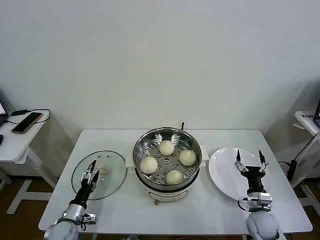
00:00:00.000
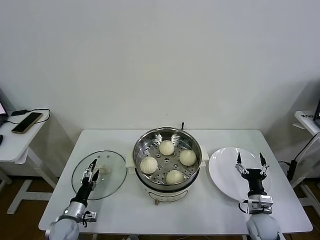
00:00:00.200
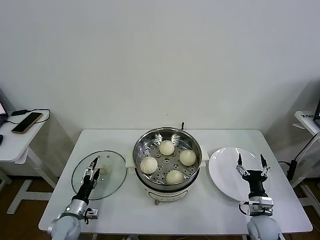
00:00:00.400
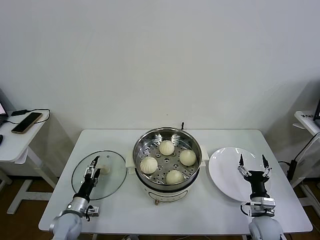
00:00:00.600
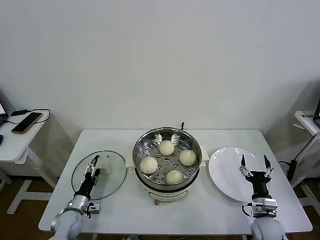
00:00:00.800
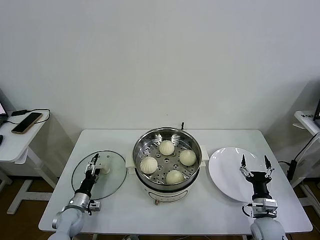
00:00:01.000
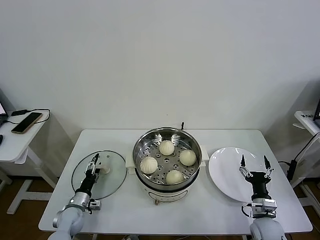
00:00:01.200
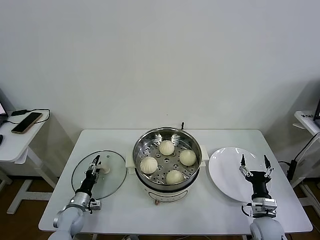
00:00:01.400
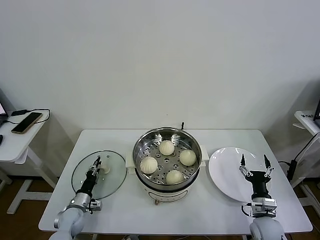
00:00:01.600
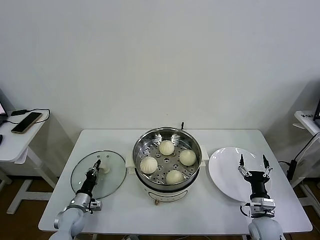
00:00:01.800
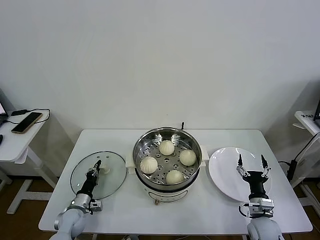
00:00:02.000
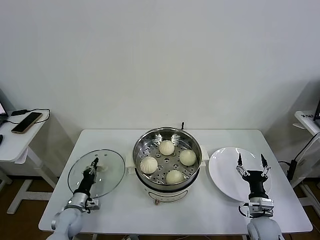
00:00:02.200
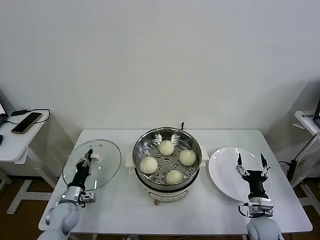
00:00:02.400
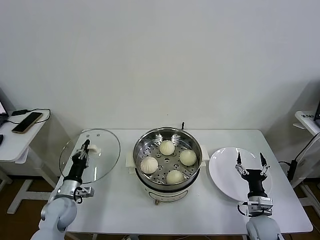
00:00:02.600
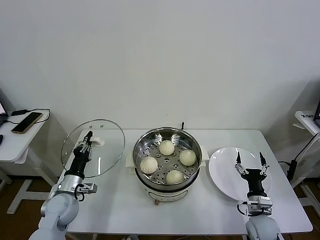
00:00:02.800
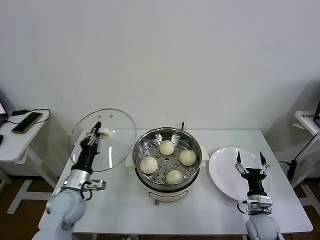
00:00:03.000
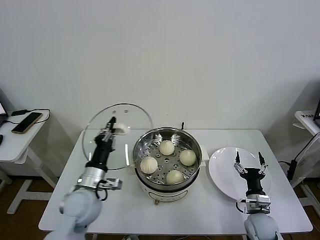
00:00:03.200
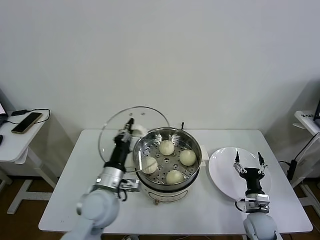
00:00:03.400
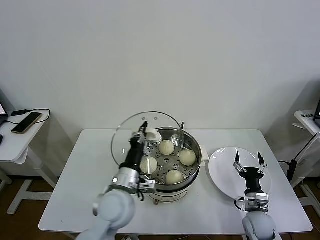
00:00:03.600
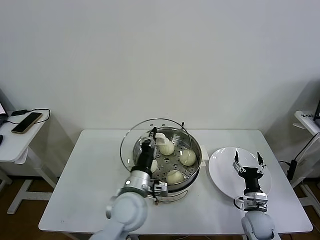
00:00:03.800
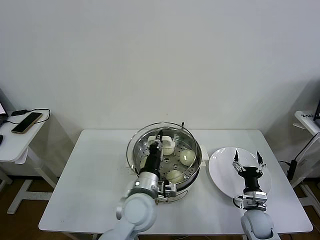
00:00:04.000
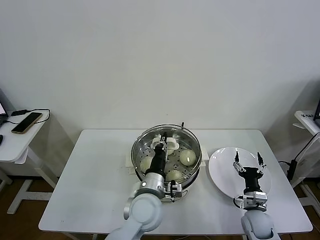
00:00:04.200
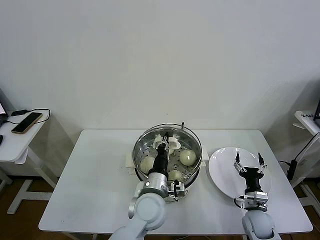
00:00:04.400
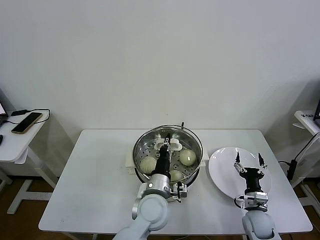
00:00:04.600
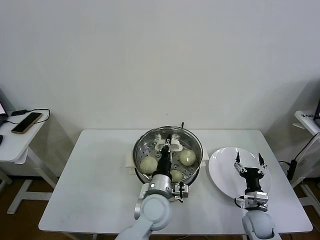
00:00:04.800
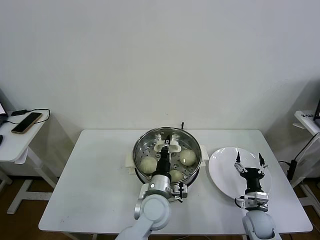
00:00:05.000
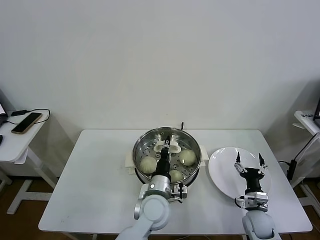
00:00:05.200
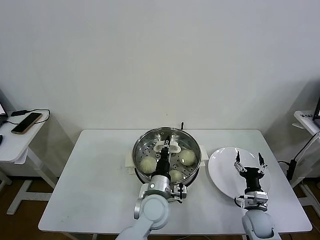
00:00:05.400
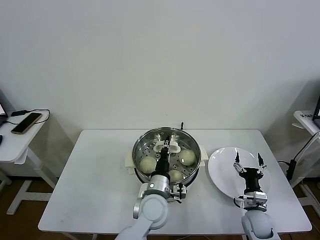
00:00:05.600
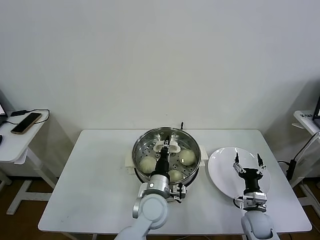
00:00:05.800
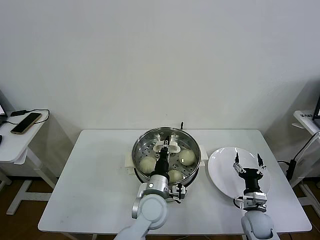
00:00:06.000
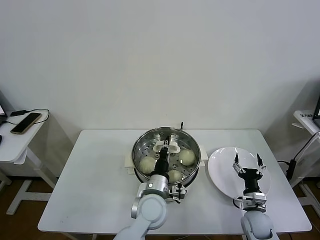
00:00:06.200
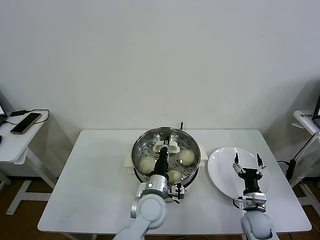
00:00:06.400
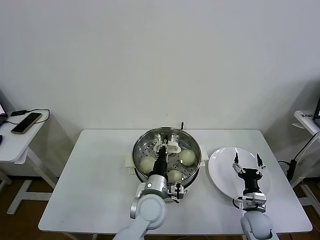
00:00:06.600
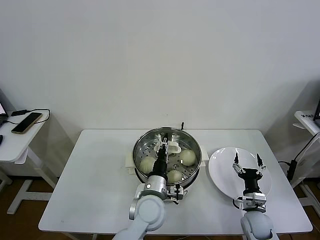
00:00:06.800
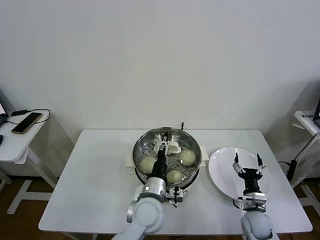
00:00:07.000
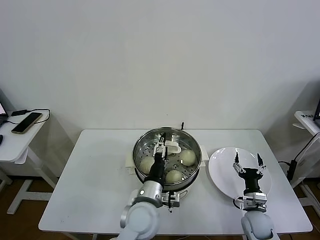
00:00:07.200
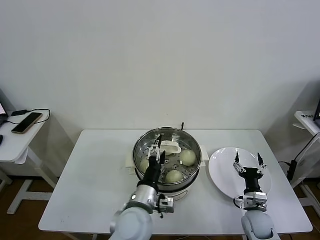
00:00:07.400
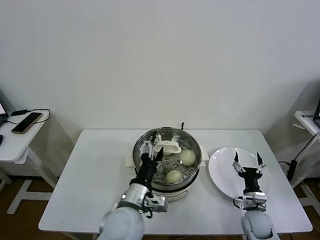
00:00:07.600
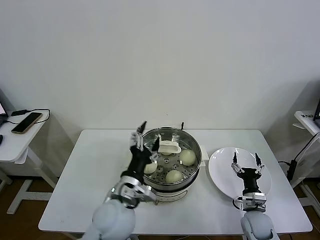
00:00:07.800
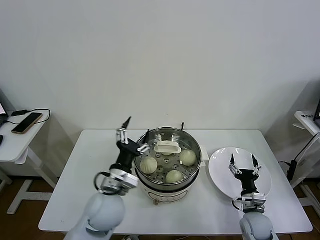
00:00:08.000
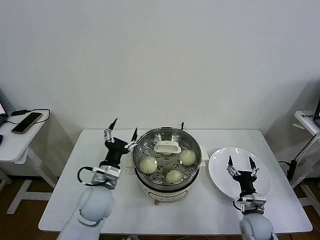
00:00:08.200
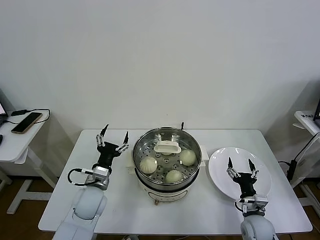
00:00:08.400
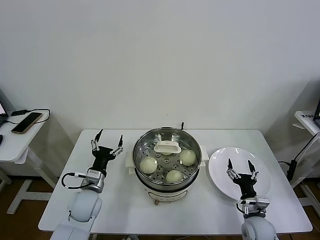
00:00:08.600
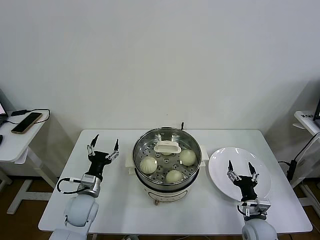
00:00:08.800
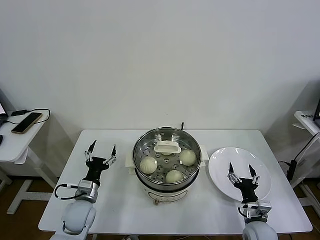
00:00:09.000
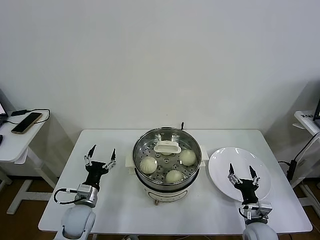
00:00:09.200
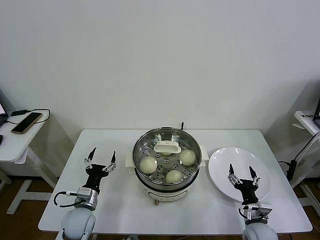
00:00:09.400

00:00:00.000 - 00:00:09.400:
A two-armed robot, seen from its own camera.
Task of the whole recording: take steamed baozi put them in steamer then cover it.
Step, 00:00:00.000 - 00:00:02.000: Grasp the pot lid with left gripper.
Step, 00:00:02.200 - 00:00:06.800: Place the pot lid on the steamer with left gripper.
00:00:00.000 - 00:00:01.600: The left gripper moves forward, about 5 cm, and closes up.
00:00:01.600 - 00:00:03.200: The left gripper heads upward and to the right, covering approximately 25 cm, and closes.
00:00:03.200 - 00:00:04.800: The left gripper goes about 20 cm to the right.
00:00:04.800 - 00:00:06.200: The grippers make only small movements.
00:00:06.200 - 00:00:07.800: The left gripper is displaced to the left, upward and backward by roughly 10 cm, and opens up.
00:00:07.800 - 00:00:09.400: The left gripper is displaced to the left and downward by approximately 25 cm.
